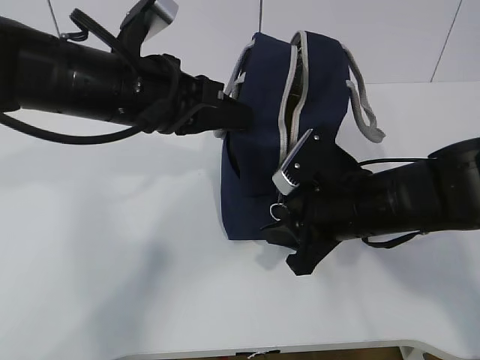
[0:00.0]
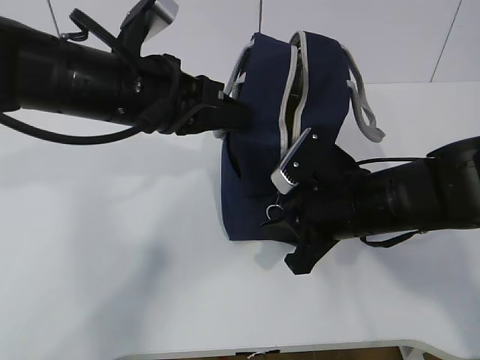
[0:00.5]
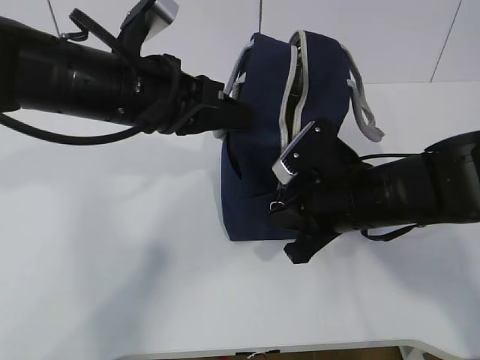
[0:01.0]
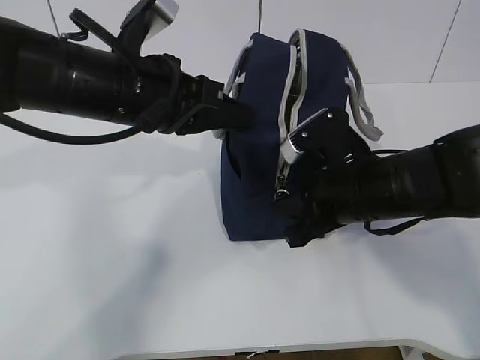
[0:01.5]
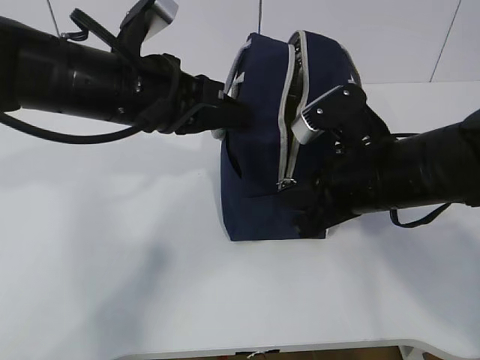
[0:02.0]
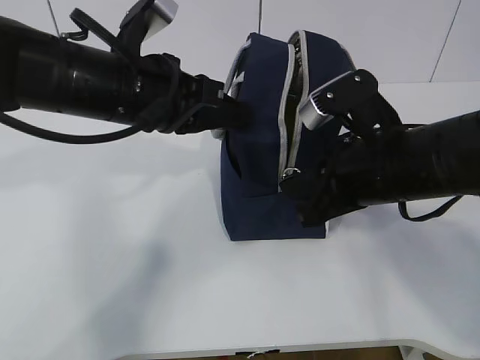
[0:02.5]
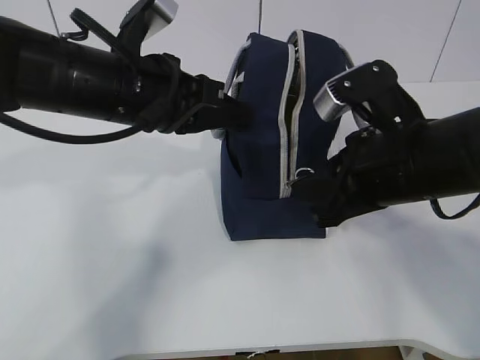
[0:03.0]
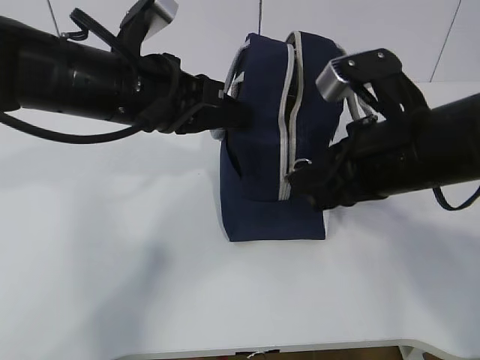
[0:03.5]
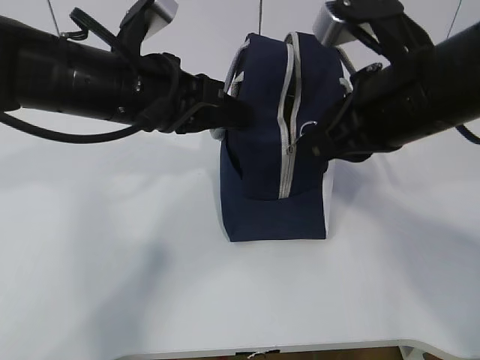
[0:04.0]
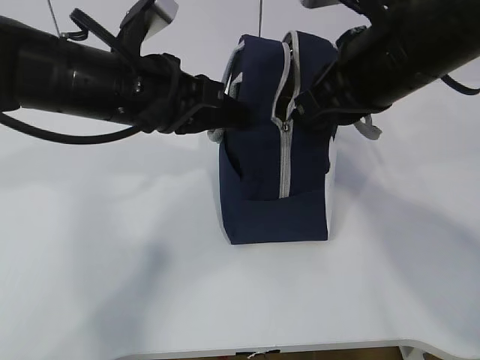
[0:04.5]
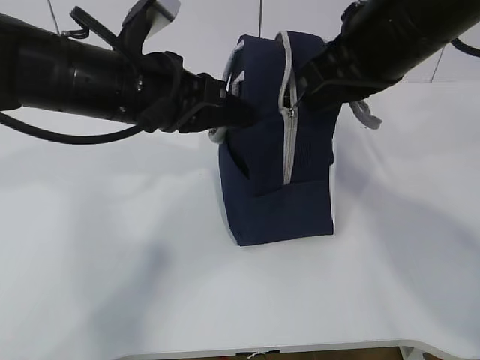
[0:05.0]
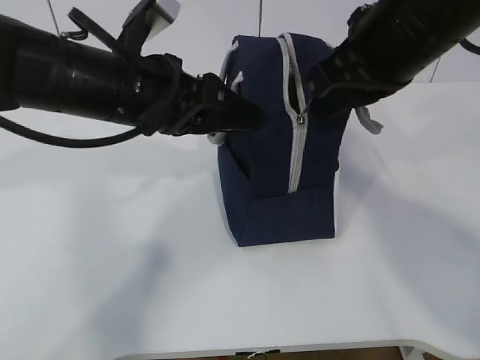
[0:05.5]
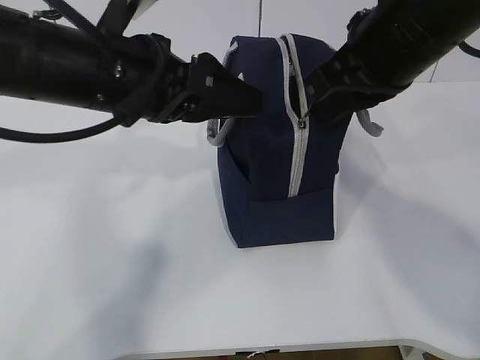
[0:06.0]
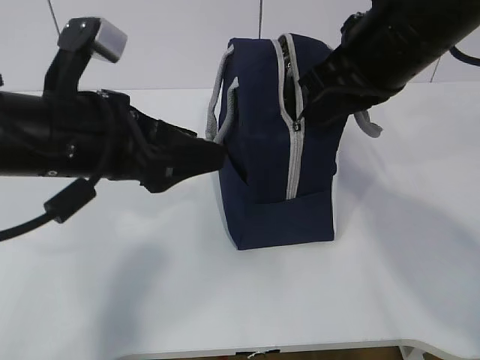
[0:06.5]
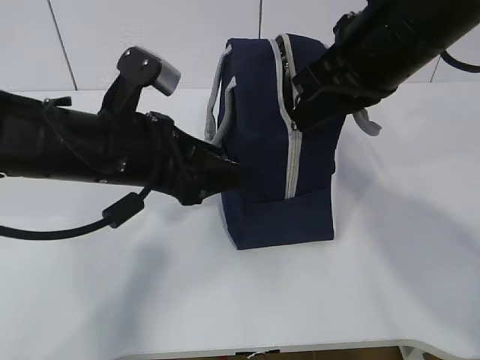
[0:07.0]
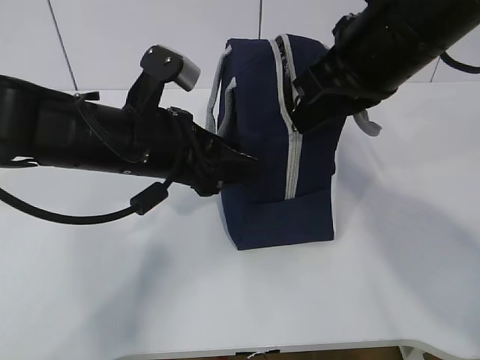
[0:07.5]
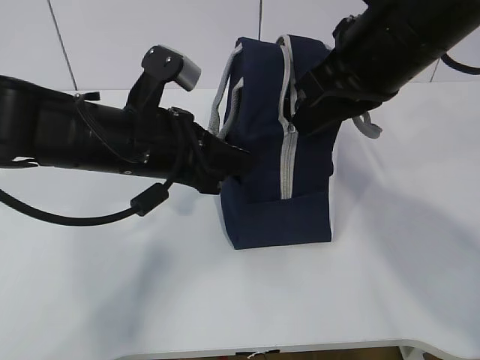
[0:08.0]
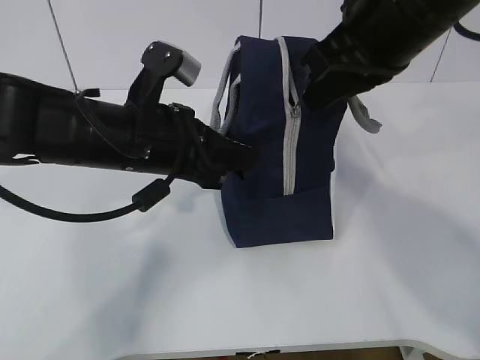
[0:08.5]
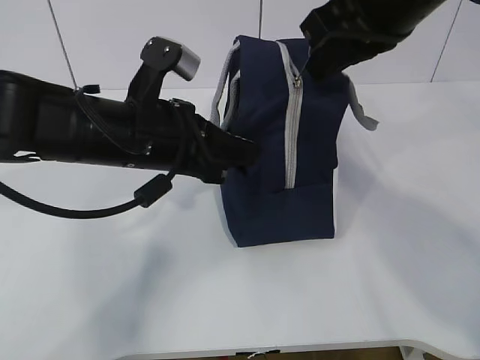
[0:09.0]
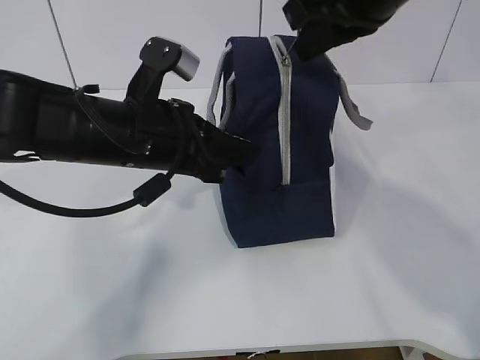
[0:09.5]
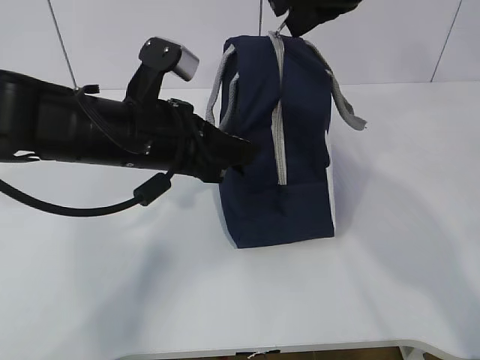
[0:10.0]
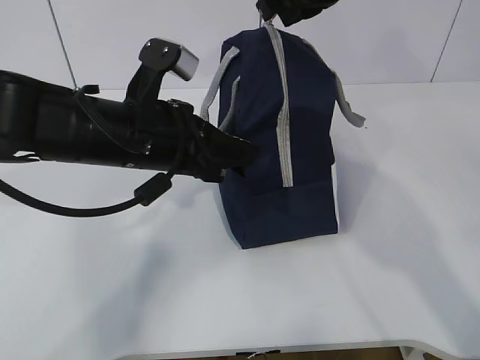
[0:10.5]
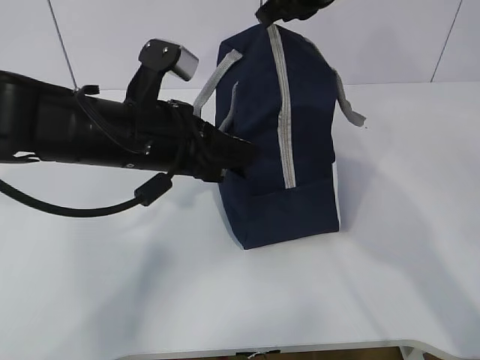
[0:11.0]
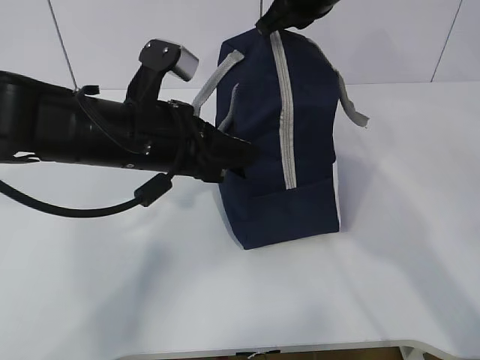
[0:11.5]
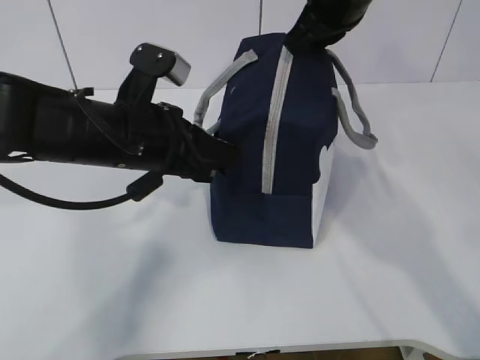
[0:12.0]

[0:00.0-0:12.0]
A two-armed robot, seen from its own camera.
Step, 0.0 to 4.5 s: Pull the zipper with your right hand.
0.0 to 2.0 s: The right gripper closes its fingers.
2.0 to 4.0 s: The right gripper travels upward by about 10 cm.
4.0 to 6.0 s: The left gripper opens up.
6.0 to 8.0 s: The left gripper travels downward by about 5 cm, and closes up.
8.0 to 10.0 s: The right gripper travels forward by about 10 cm.
10.0 to 12.0 s: The right gripper moves some 5 cm.

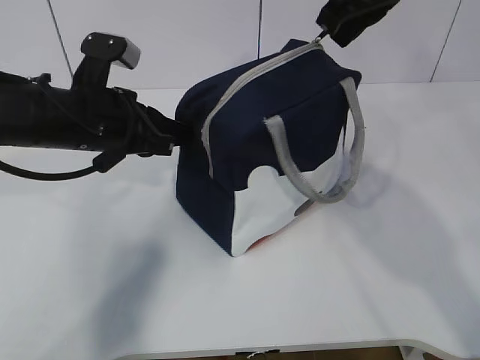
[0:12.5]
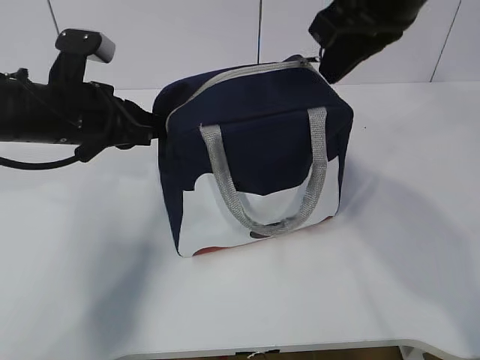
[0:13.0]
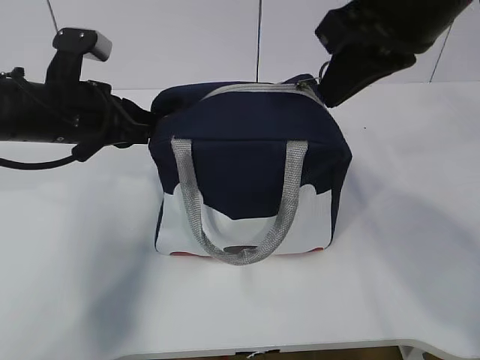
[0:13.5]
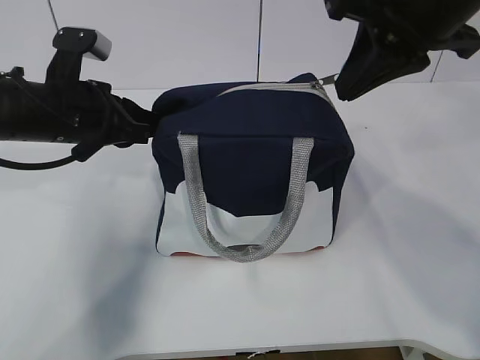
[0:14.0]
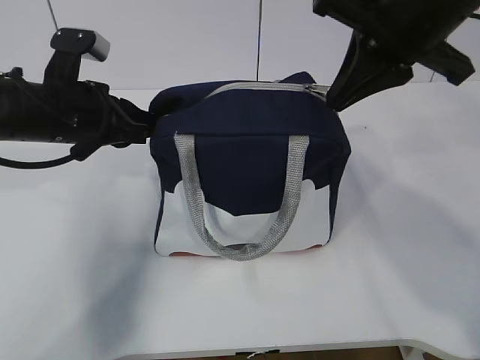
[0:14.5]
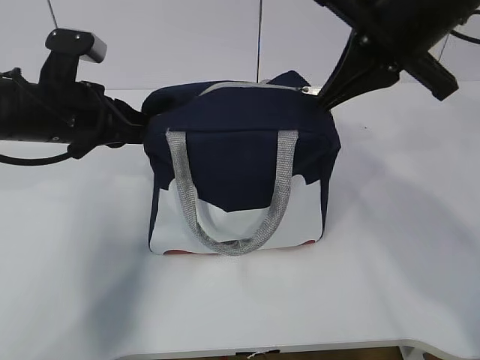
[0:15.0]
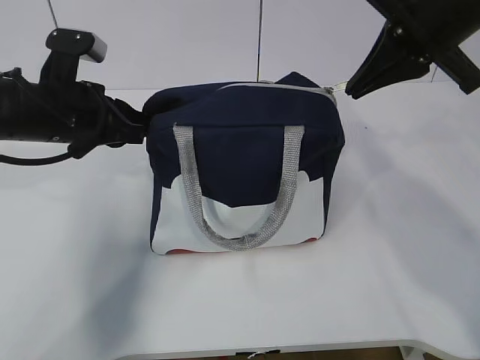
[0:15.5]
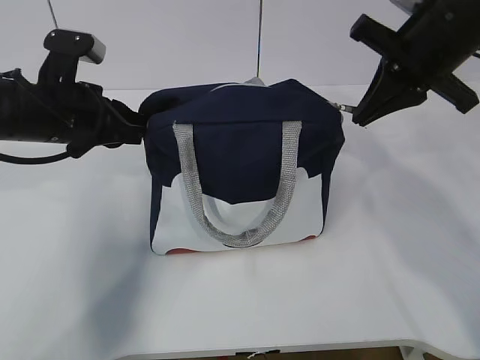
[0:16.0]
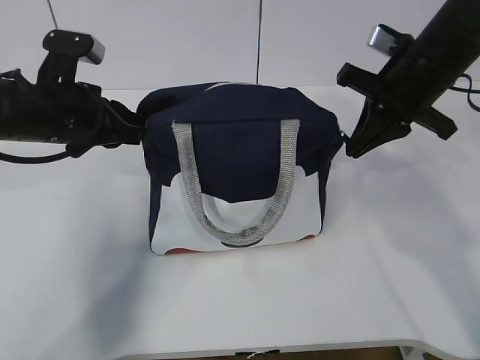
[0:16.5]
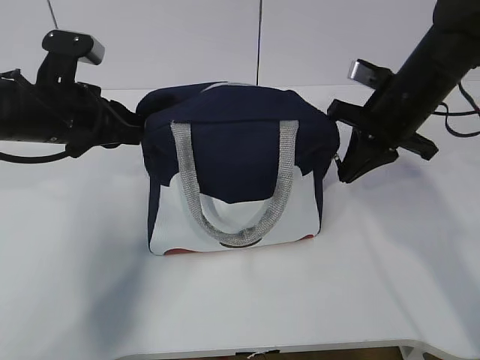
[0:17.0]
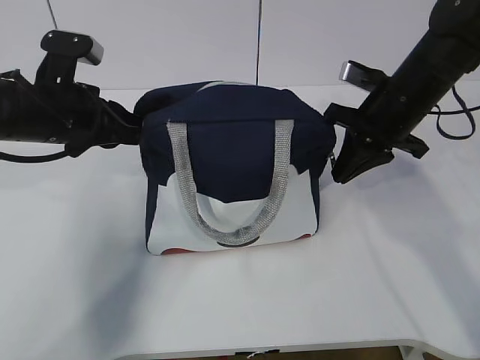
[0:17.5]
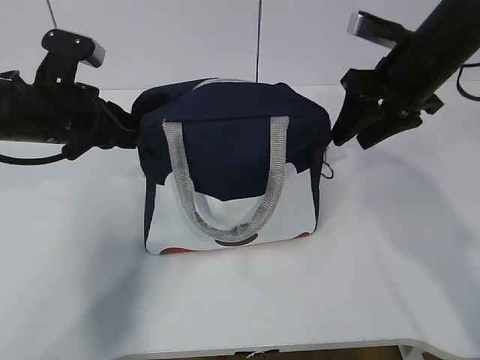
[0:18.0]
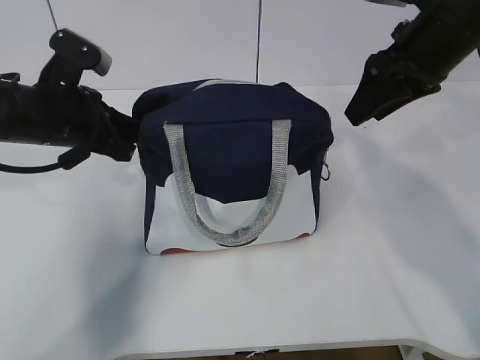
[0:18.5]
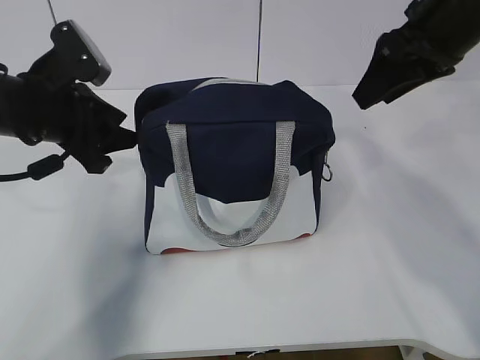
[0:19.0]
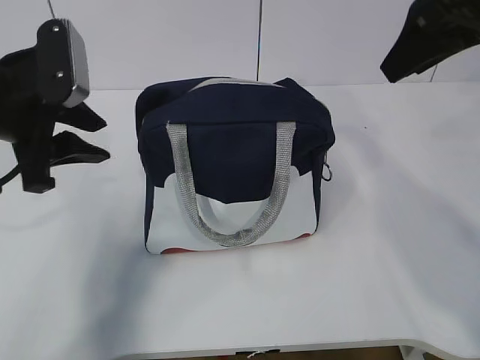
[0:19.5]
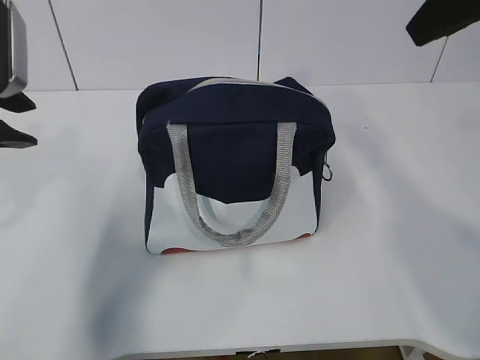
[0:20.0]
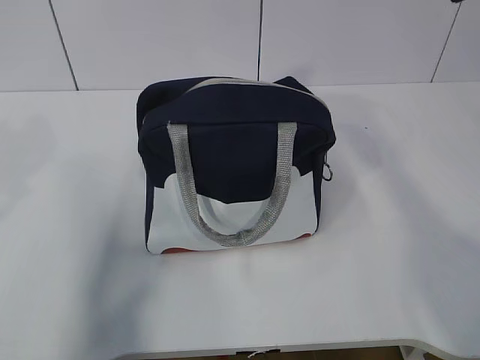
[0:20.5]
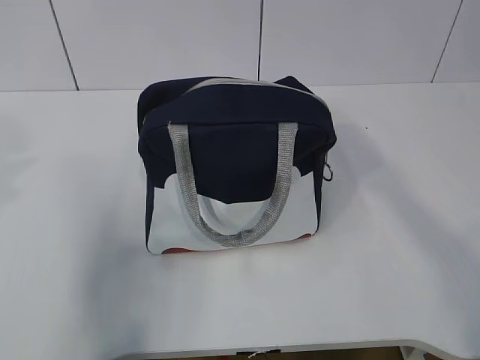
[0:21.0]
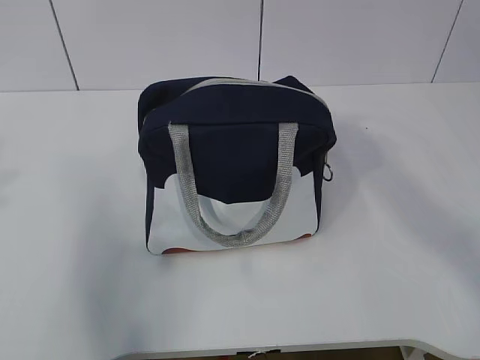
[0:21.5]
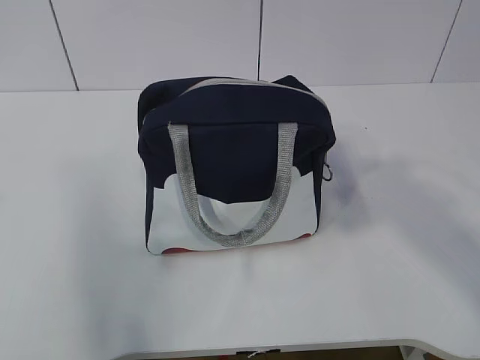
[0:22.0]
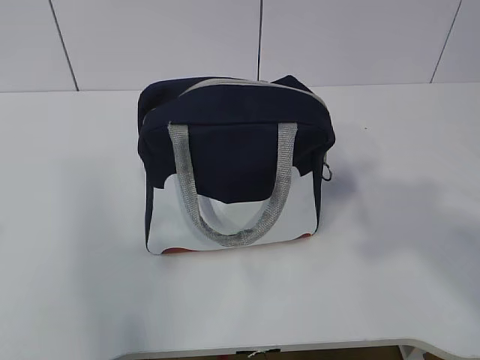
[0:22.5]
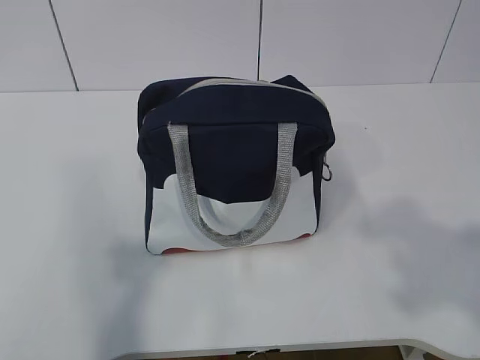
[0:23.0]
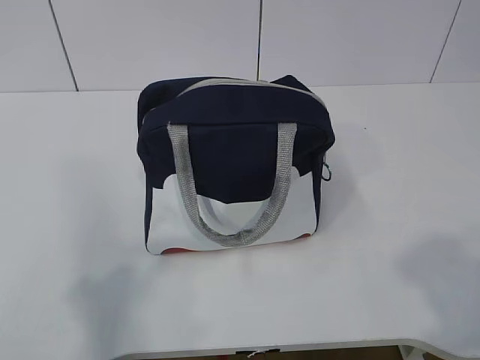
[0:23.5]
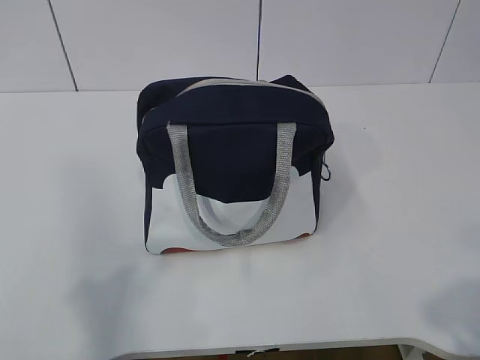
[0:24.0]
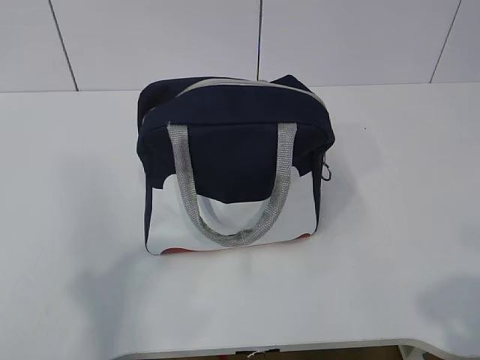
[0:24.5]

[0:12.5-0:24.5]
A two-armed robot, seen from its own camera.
12.5 to 14.5 s: The right gripper heads backward, covering roughly 5 cm.
14.5 to 16.5 s: The right gripper shifts some 15 cm downward, forward and to the right.
16.5 to 18.5 s: The right gripper shifts by roughly 5 cm, and opens.
18.5 to 20.5 s: The right gripper moves upward and backward, about 20 cm, while the left gripper is displaced upward, backward and to the left by about 20 cm, and opens up.
20.5 to 22.5 s: The grippers both shift backward by approximately 20 cm.
22.5 to 24.5 s: The left gripper heads downward and backward, covering roughly 10 cm. The right gripper is displaced downward by roughly 15 cm.

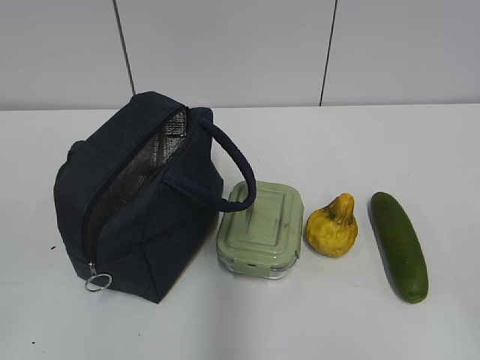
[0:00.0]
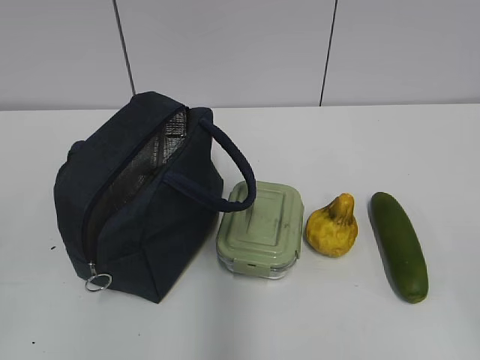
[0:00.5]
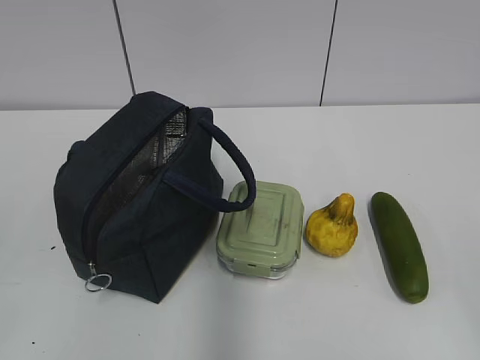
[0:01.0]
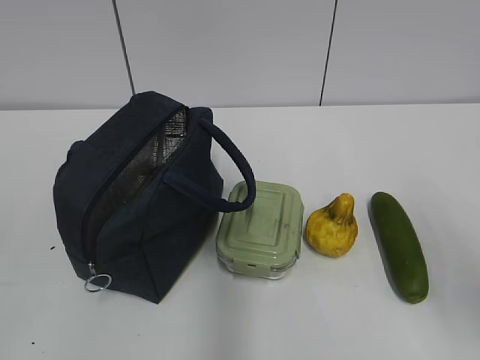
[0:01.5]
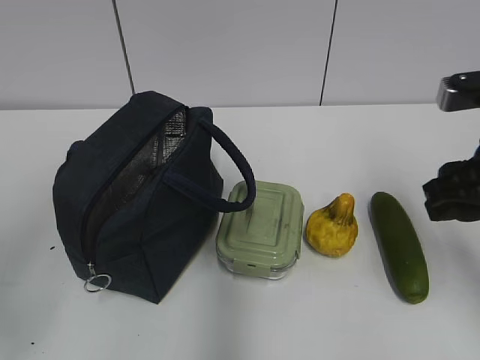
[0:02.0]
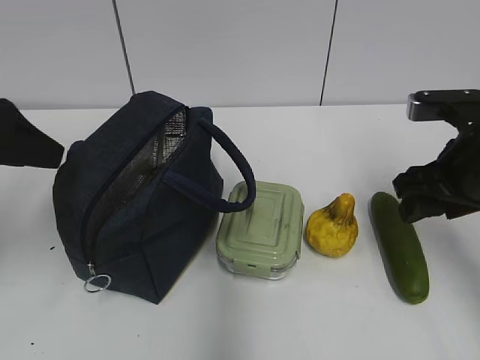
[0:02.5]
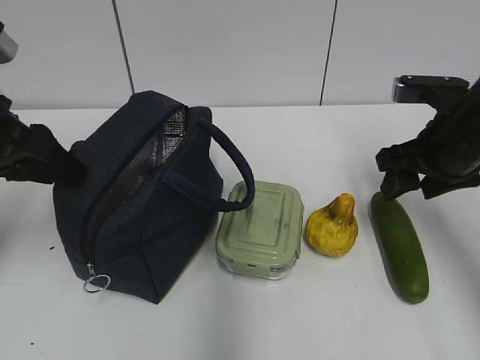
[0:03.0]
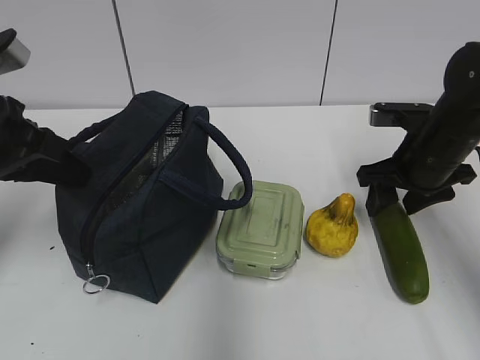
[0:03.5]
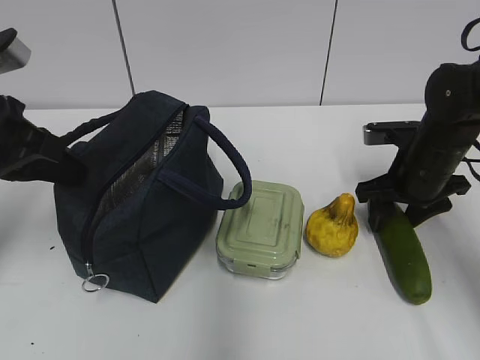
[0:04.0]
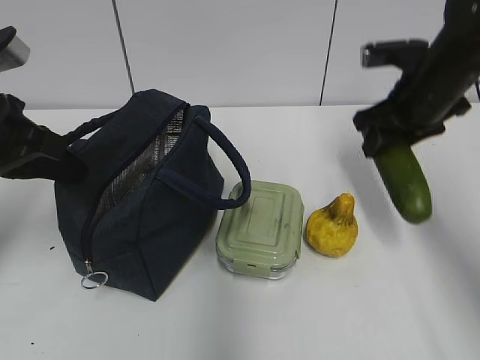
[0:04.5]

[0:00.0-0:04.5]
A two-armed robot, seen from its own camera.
Step, 0.0 to 3.0 s: Grab the lunch bag with your left hand.
Step, 3.5 to 4.0 s: Grab the cucumber with your right hand.
2.0 to 4.5 s: Both grippers travel together forward, approximately 15 cm. The left gripper closes.
